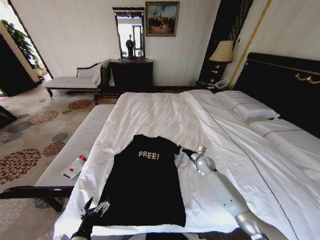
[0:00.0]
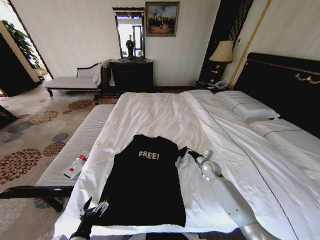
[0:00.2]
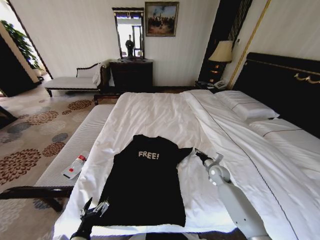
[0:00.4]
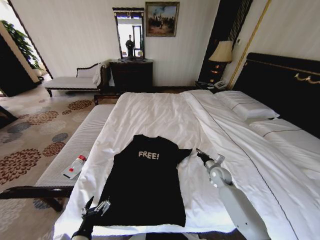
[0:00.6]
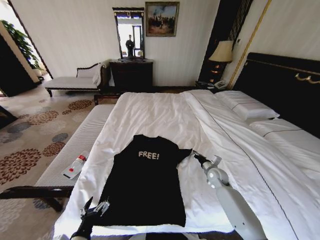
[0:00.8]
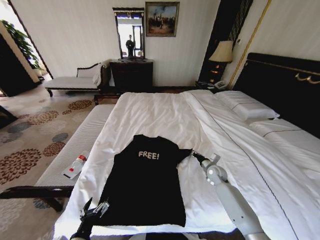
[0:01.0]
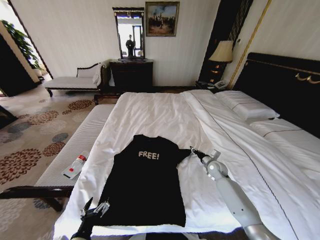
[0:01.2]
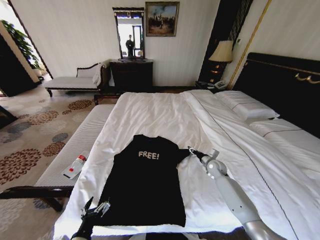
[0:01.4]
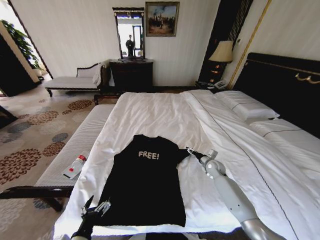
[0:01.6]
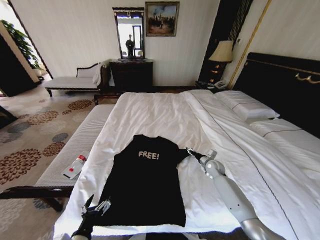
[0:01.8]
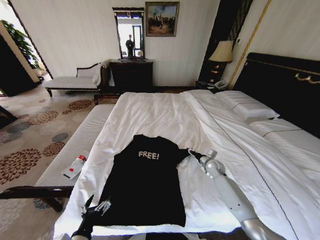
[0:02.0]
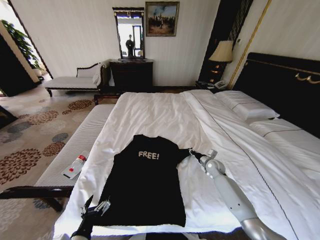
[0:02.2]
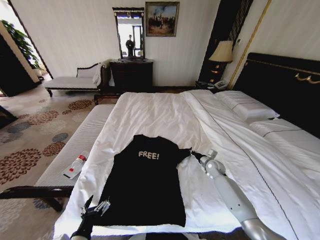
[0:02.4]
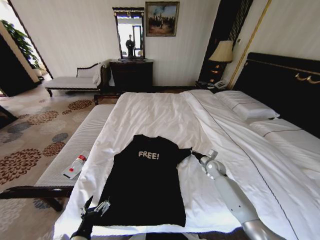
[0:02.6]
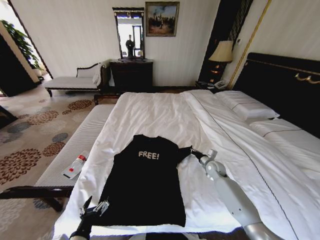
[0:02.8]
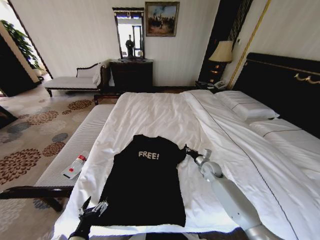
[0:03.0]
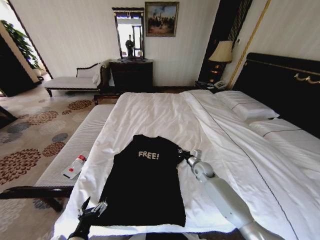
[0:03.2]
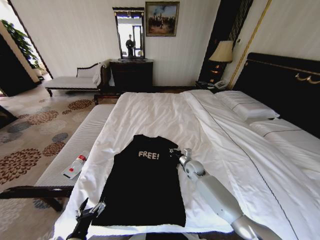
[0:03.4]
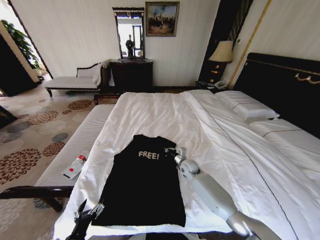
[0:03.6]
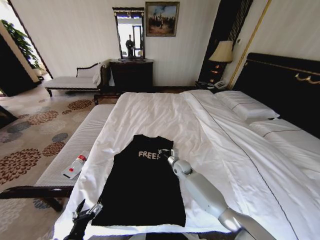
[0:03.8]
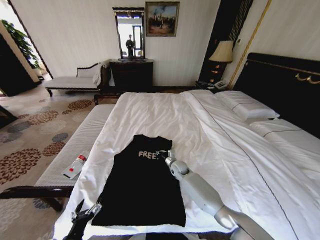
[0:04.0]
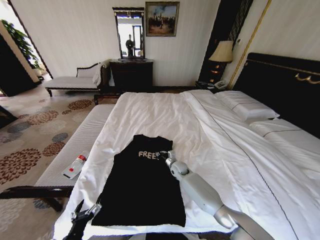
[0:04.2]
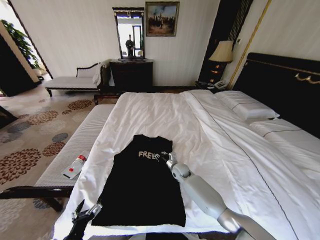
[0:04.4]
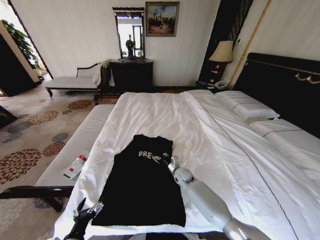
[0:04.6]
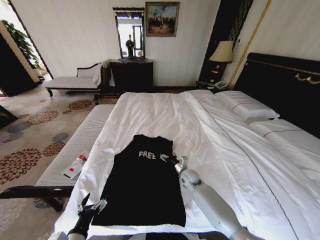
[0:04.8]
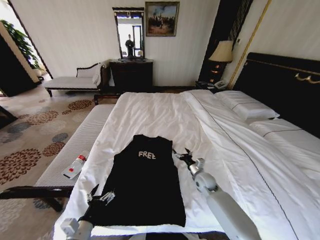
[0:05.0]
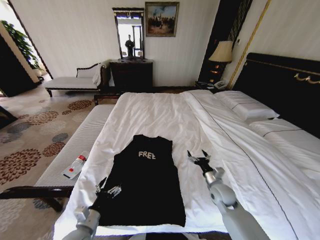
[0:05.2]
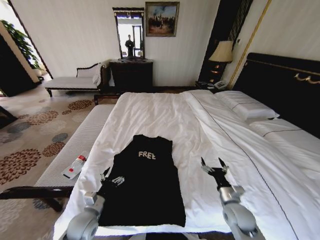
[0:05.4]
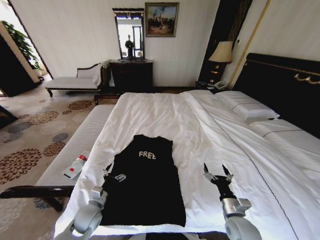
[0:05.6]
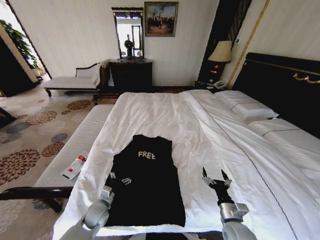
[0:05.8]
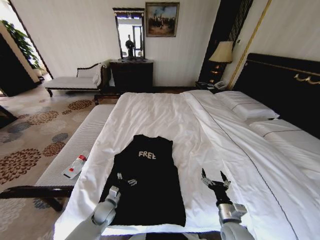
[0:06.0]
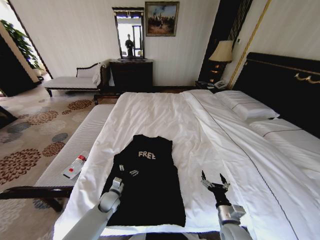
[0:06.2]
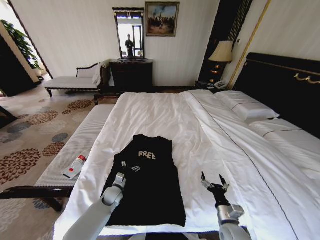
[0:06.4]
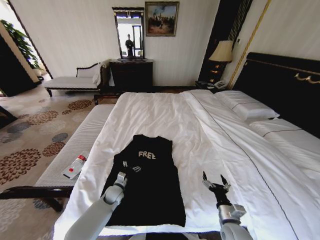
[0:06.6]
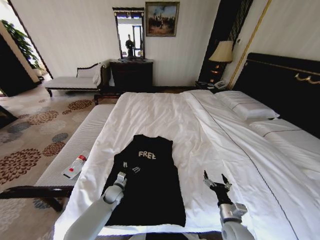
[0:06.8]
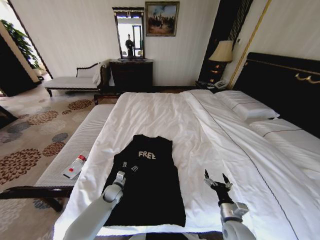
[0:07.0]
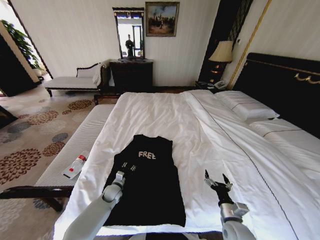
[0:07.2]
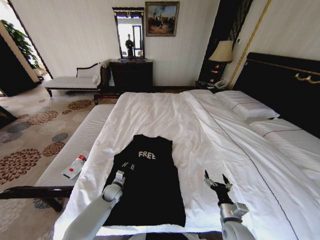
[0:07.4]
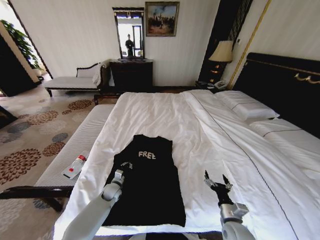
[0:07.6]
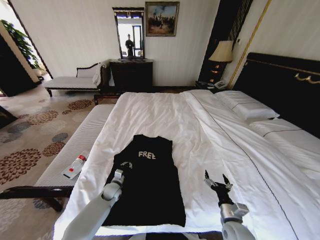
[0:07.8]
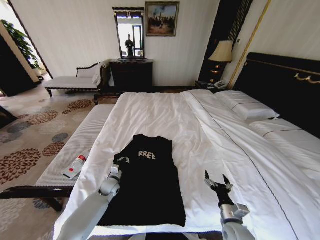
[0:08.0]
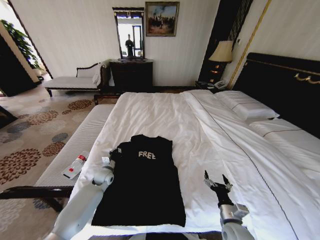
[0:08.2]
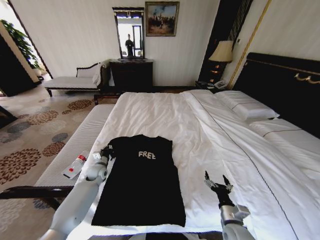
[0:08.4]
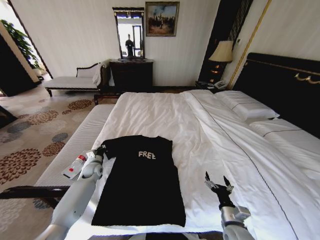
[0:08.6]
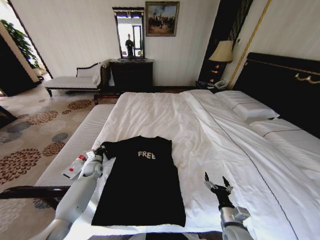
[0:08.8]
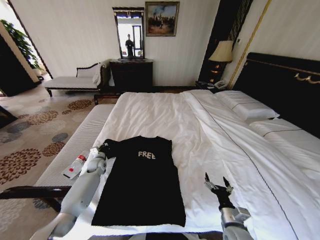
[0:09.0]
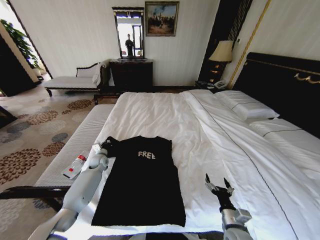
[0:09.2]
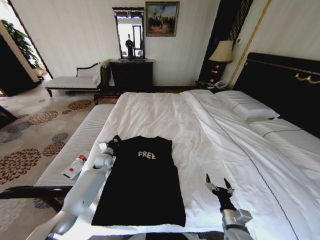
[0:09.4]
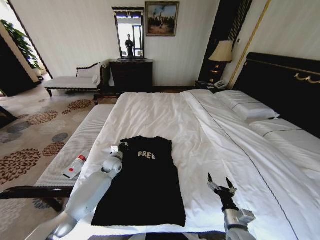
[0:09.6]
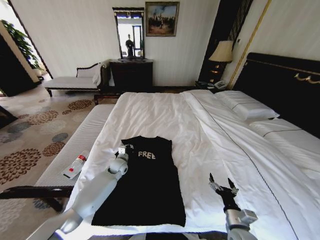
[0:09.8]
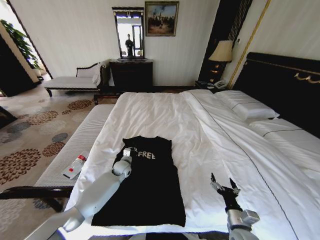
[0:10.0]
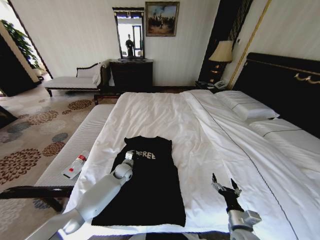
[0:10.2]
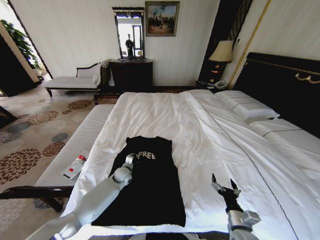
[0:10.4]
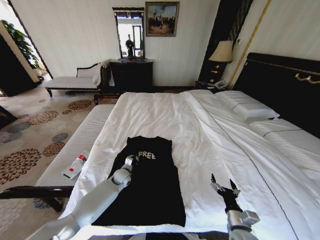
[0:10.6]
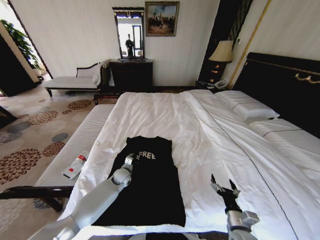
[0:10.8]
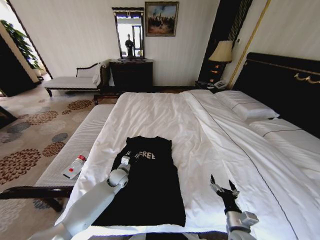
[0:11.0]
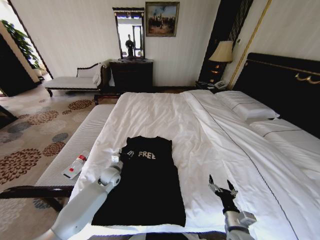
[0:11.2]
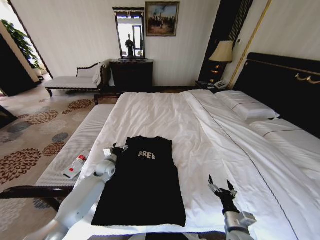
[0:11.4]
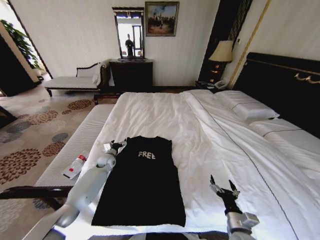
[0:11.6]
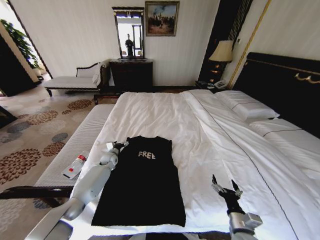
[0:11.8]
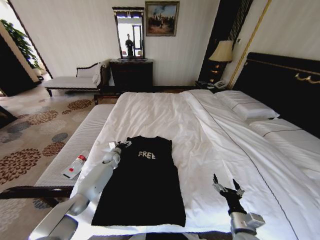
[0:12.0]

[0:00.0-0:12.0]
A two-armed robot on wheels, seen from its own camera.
Task of the whole recording: Fold the clothes on the bed.
0:00.0 to 0:01.6: The right gripper moves to the right, some 5 cm, and opens its fingers.
0:01.6 to 0:03.0: The right gripper closes its fingers.
0:03.0 to 0:04.4: The right gripper shifts approximately 15 cm to the left.
0:04.4 to 0:06.0: The right gripper is displaced backward and to the right by approximately 30 cm, and opens. Meanwhile the left gripper goes roughly 20 cm forward and downward.
0:06.0 to 0:07.6: The left gripper is displaced forward by about 10 cm, and closes up.
0:07.6 to 0:09.0: The left gripper heads forward, to the left and upward, covering about 20 cm.
0:09.0 to 0:10.4: The left gripper moves to the right, roughly 15 cm.
0:10.4 to 0:12.0: The left gripper heads forward and to the left, covering about 15 cm, and opens its fingers.

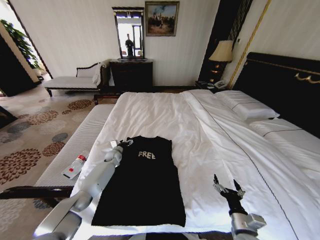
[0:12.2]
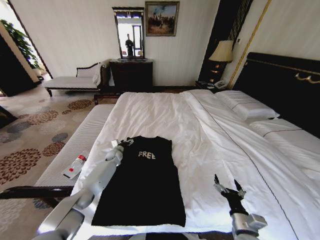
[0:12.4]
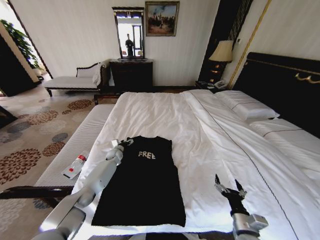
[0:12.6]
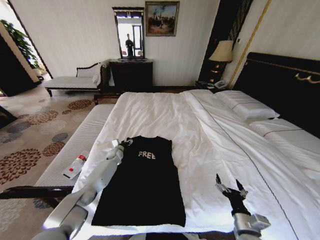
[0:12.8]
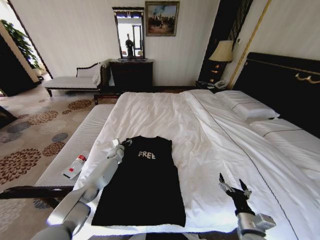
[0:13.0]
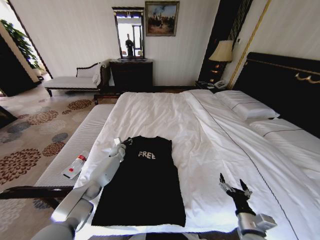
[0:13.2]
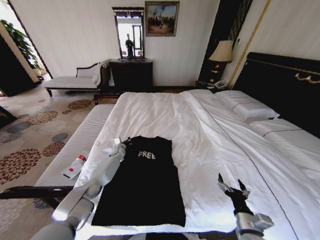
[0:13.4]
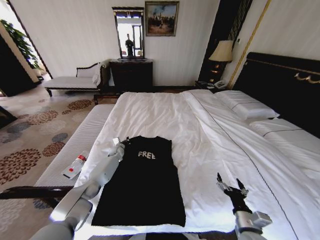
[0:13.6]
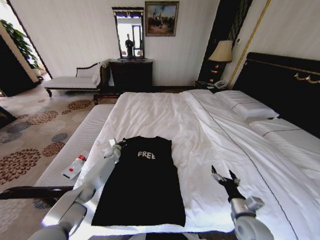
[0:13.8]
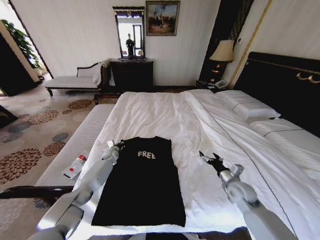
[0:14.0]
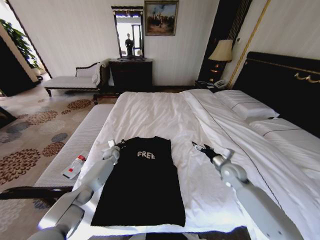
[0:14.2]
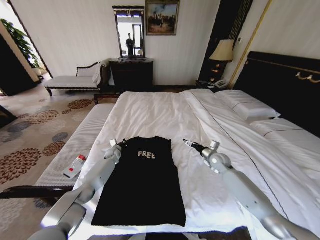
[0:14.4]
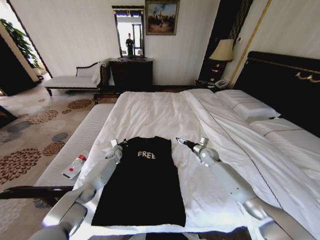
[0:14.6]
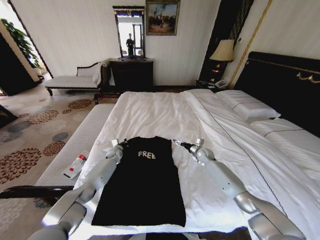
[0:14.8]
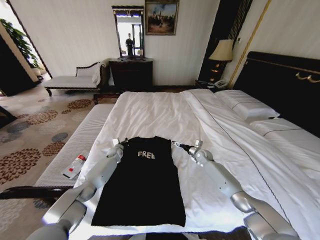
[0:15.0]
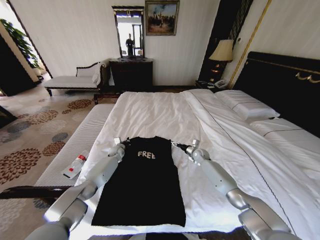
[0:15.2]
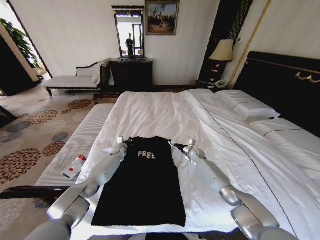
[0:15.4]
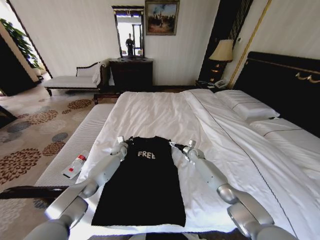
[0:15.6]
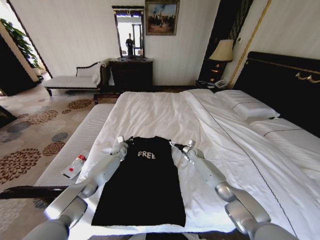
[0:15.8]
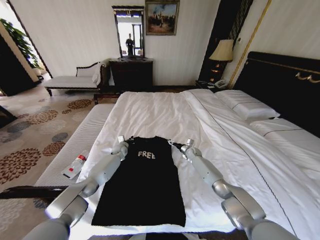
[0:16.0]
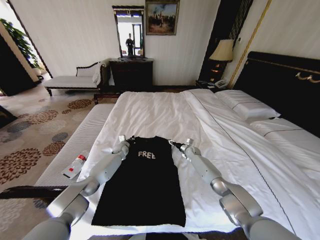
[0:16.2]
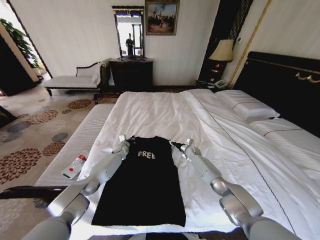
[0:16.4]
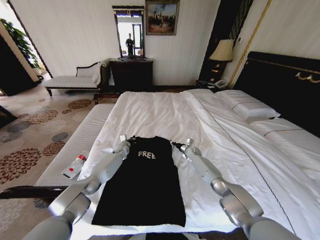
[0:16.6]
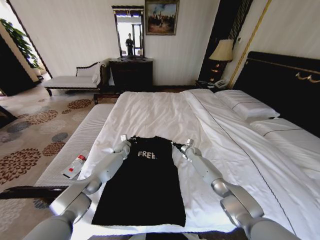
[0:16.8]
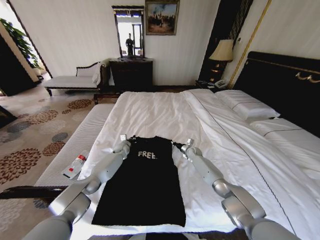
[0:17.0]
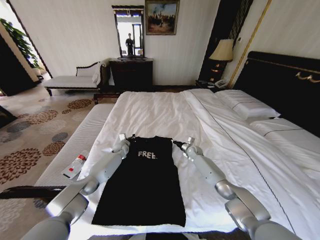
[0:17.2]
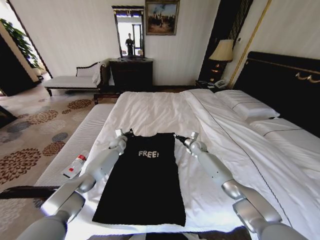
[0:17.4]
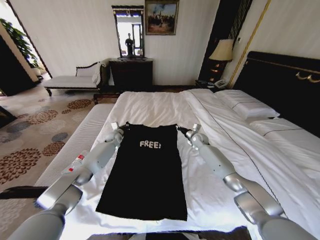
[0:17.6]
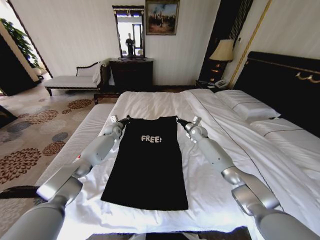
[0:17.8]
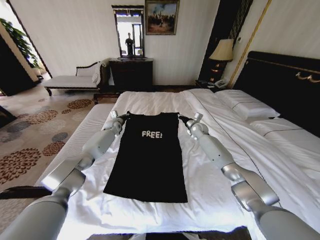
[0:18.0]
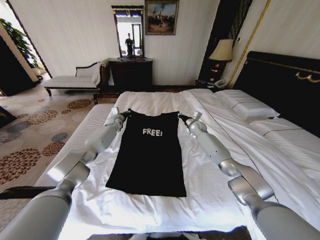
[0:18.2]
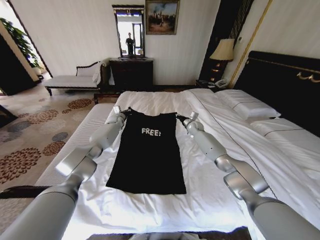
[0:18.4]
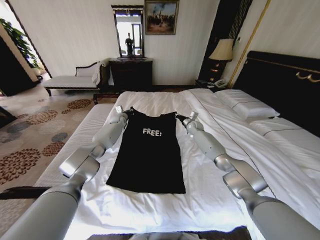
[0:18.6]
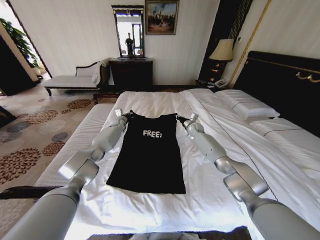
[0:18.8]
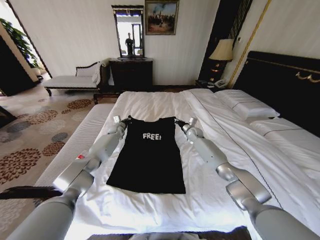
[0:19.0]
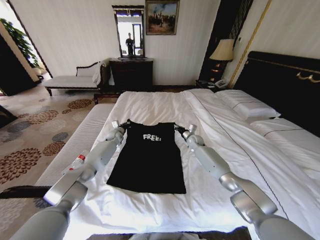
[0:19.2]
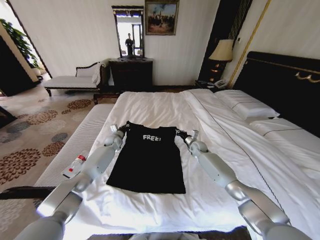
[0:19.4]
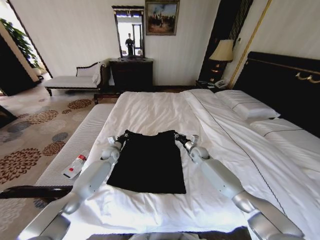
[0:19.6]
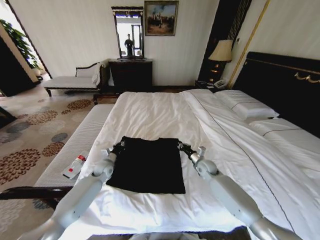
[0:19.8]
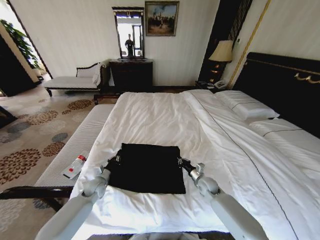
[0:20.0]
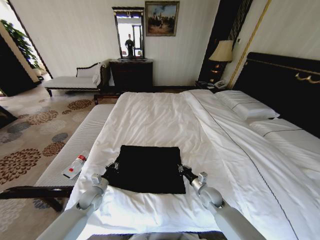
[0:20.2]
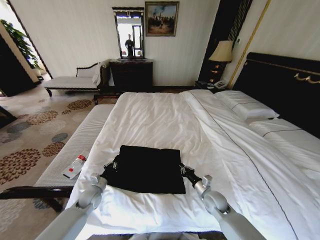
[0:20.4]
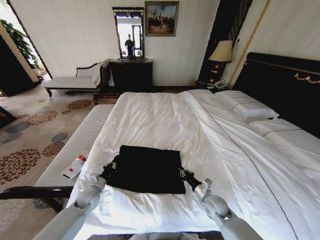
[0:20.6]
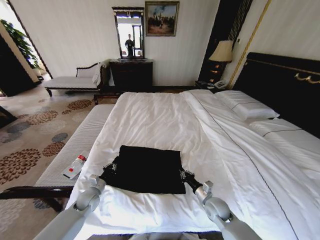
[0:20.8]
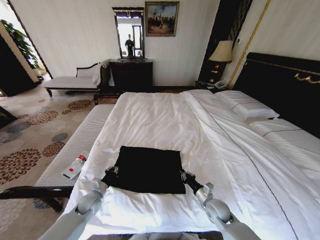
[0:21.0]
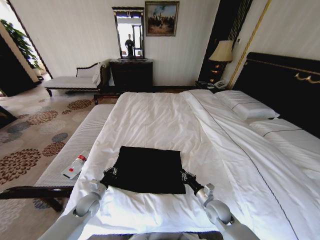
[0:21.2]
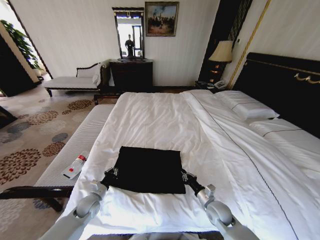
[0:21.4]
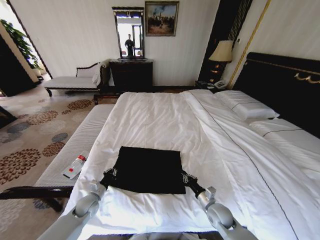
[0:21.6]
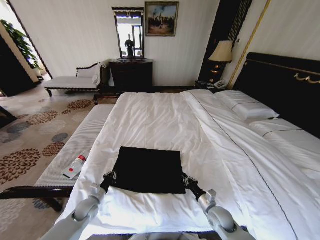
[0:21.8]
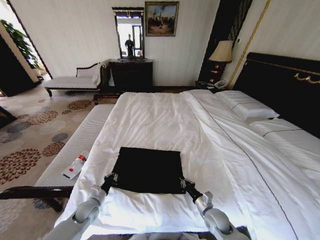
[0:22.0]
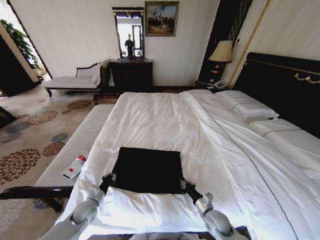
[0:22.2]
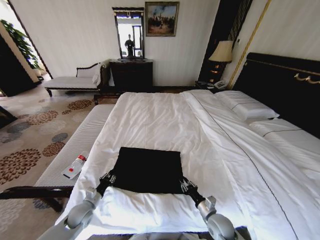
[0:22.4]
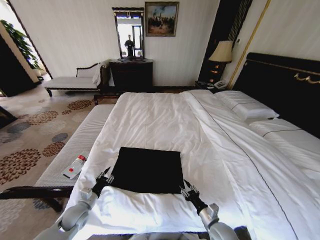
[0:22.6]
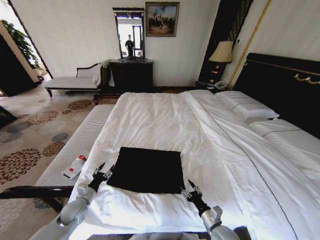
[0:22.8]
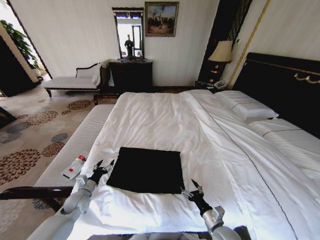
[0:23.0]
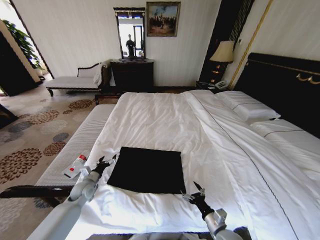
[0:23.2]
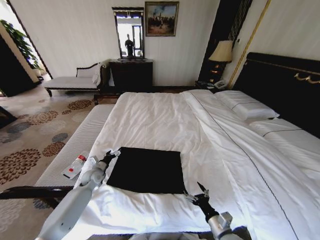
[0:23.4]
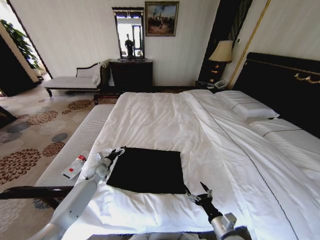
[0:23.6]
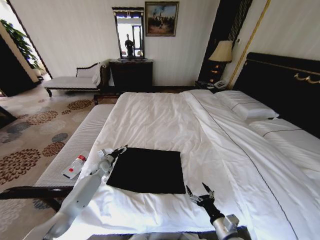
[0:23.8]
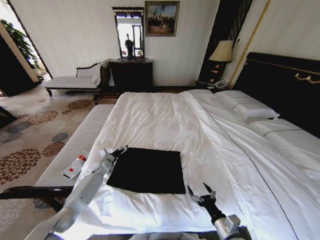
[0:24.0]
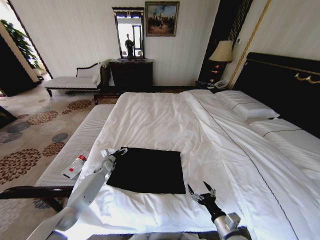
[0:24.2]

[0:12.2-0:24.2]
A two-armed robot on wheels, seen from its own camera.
Task of the whole recording: Fold the clothes on the bed.
0:12.2 to 0:13.8: The left gripper closes. The right gripper changes place by roughly 5 cm.
0:13.8 to 0:15.2: The right gripper travels forward by about 35 cm.
0:15.2 to 0:16.6: The right gripper moves approximately 5 cm, and closes.
0:16.6 to 0:18.2: The right gripper travels upward by some 15 cm. The left gripper goes about 20 cm upward and forward.
0:18.2 to 0:19.8: The grippers both shift backward and downward by approximately 25 cm.
0:19.8 to 0:21.2: The grippers both shift backward by approximately 20 cm.
0:21.2 to 0:22.6: The right gripper moves backward, roughly 10 cm, and opens. The left gripper ends up about 5 cm from where it was, and opens up.
0:22.6 to 0:24.2: The left gripper travels forward by about 25 cm, and opens, while the right gripper shifts roughly 5 cm upward, and opens its fingers.
